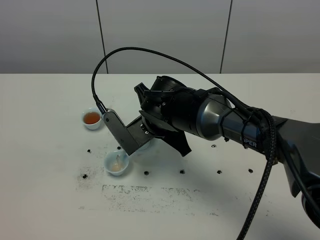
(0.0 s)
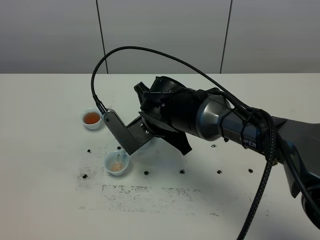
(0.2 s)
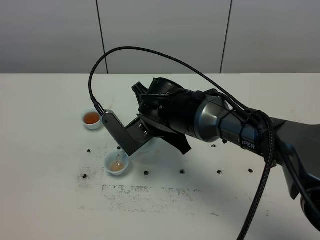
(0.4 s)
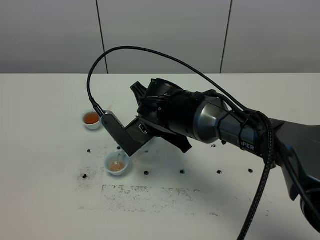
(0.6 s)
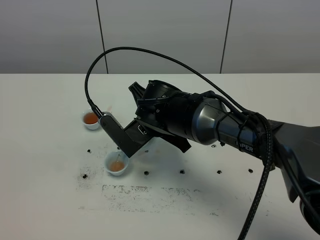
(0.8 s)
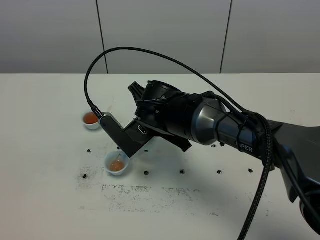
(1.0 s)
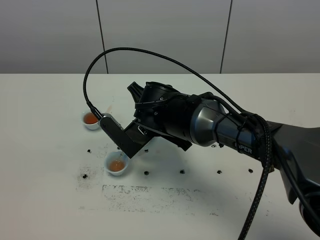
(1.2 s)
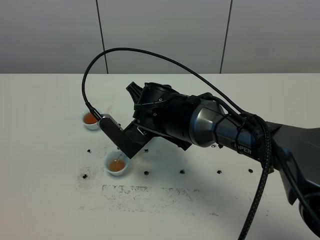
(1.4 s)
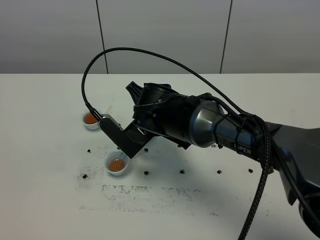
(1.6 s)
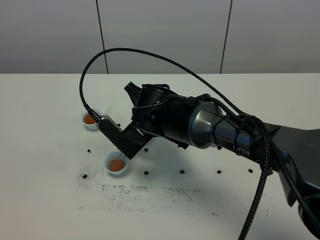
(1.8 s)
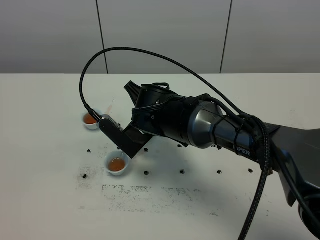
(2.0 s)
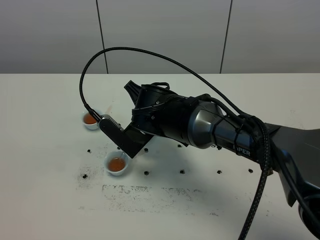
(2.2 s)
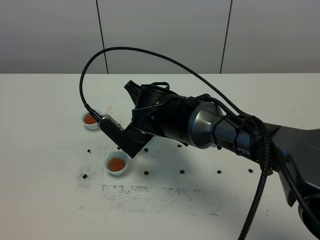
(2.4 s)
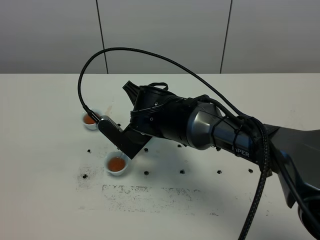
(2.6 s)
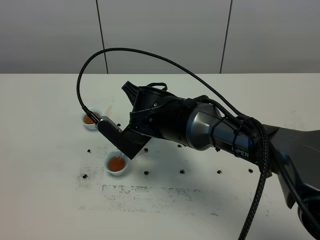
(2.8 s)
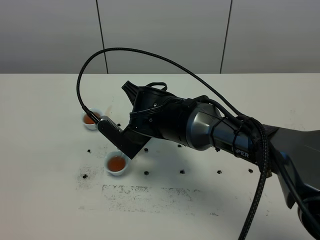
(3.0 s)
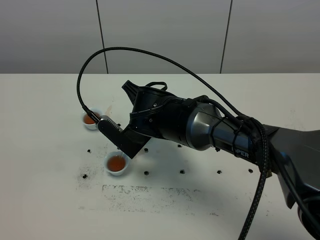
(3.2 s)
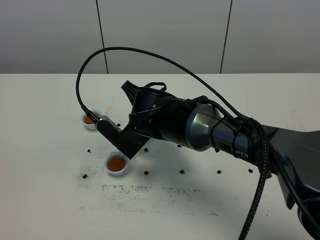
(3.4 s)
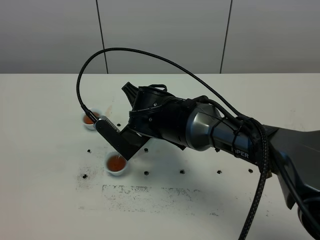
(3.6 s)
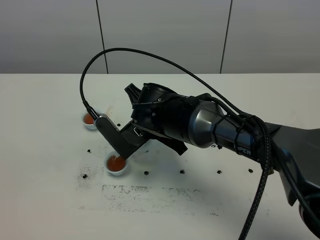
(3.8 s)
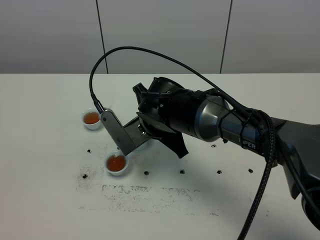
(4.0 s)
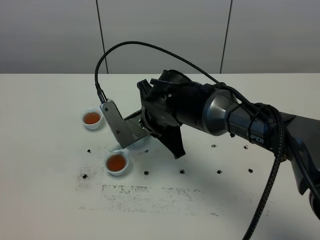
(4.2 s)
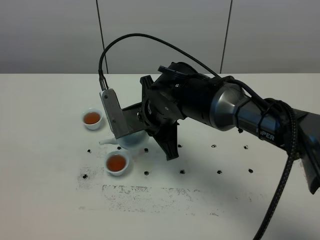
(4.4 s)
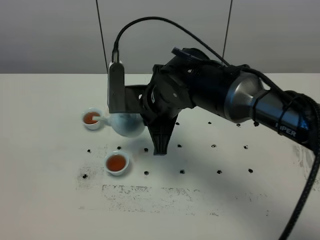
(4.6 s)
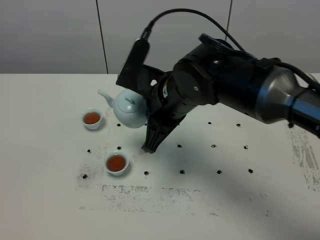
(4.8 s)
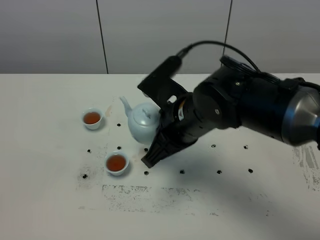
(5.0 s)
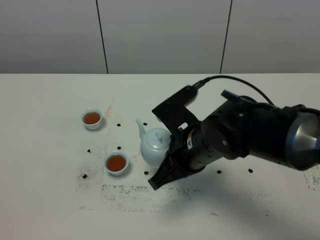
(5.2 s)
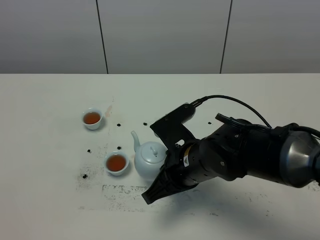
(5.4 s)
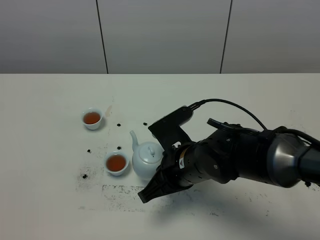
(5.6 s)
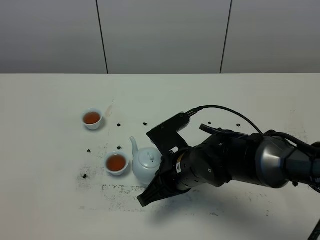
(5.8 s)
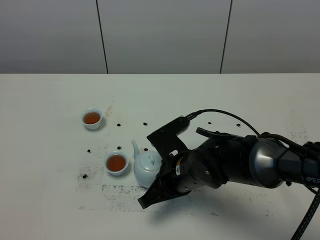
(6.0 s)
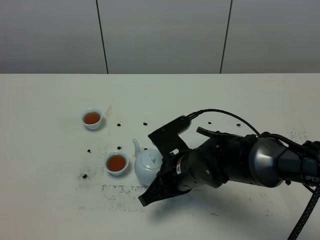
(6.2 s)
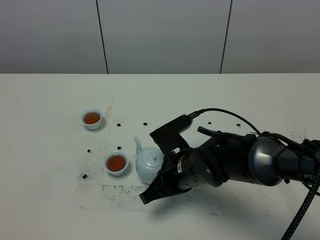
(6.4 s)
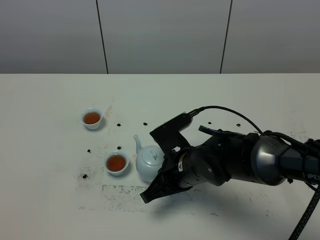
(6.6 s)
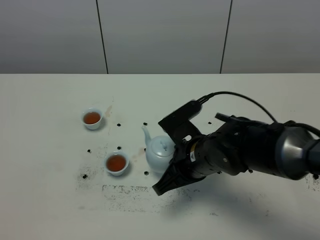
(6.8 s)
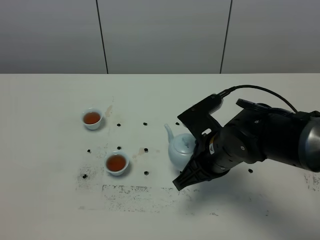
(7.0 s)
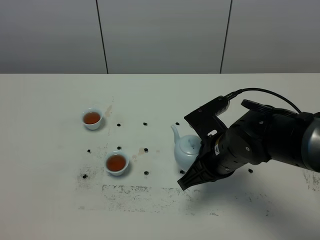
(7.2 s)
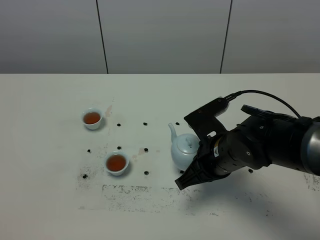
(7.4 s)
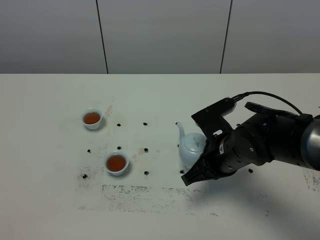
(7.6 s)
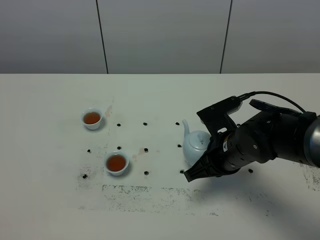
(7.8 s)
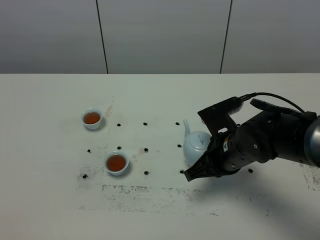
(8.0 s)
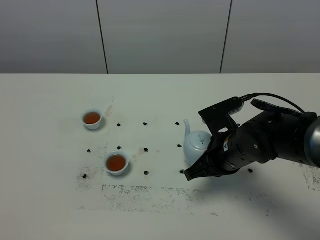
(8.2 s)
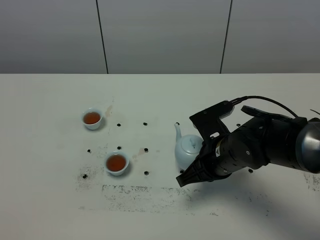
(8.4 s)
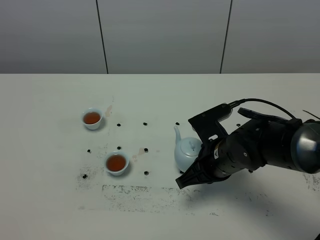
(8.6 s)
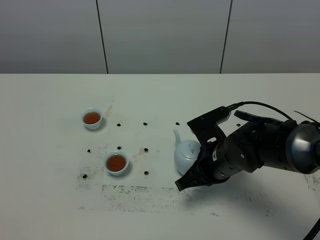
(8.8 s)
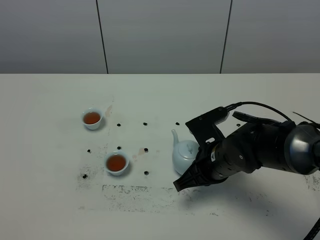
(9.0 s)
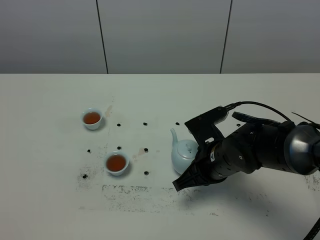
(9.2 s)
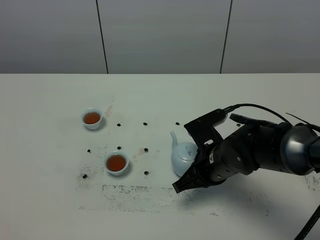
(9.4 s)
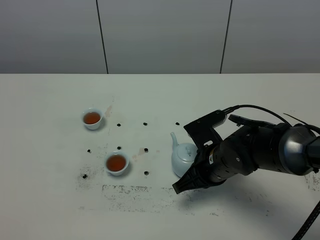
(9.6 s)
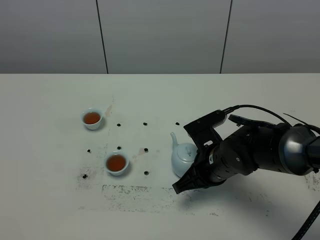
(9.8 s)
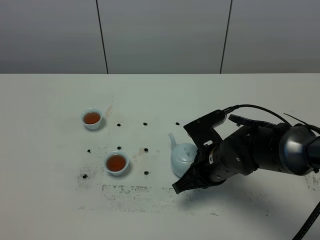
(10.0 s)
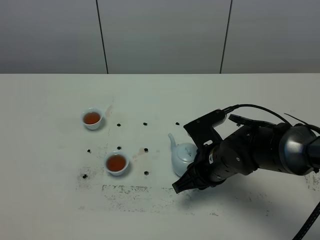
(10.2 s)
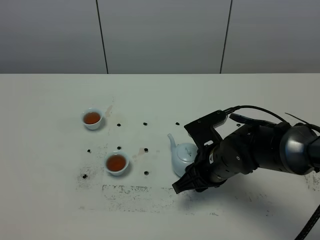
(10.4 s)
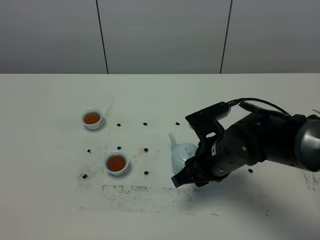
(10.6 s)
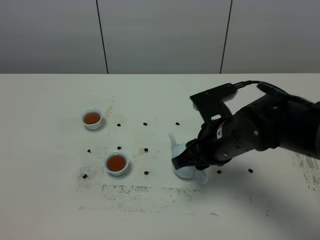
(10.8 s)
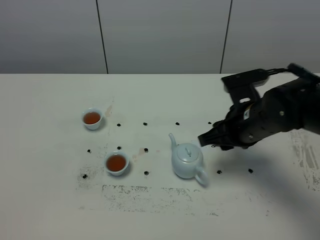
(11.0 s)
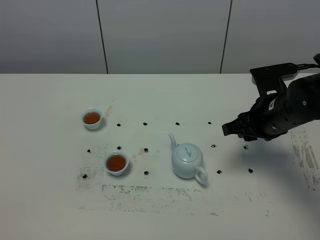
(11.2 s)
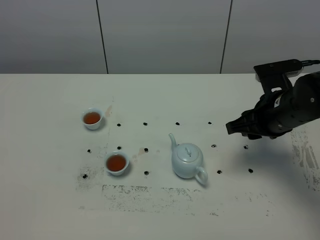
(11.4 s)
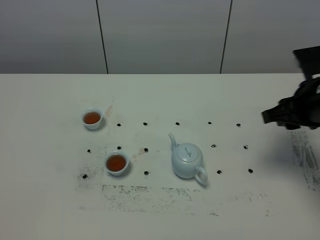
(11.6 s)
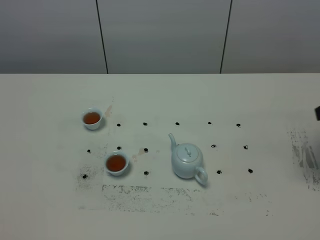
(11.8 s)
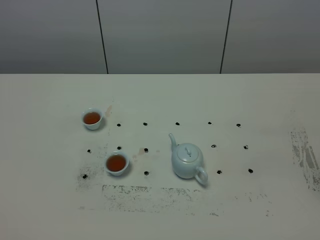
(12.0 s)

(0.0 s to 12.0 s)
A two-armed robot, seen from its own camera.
Task of the whole recording: grasp the blue porcelain teapot and pour the tea into the two blue porcelain teacups one by one, put the blue porcelain teapot back in its original place.
Step, 0.0 s - 4.2 s: Pour tea into the teacup with the right gripper.
0.0 s - 1.6 s: The grippers make only small movements.
1.6 s - 3.0 s: The two grippers keep their place.
4.4 s - 6.0 s: The right gripper shifts roughly 10 cm backward and downward.
6.0 s - 7.6 s: The right gripper shifts approximately 10 cm to the right.
7.6 s - 9.0 s: The grippers stay close to where they were, moving slightly.
9.0 s - 10.4 s: The right gripper opens.
10.4 s - 12.0 s: The right gripper travels to the right and upward by approximately 30 cm.

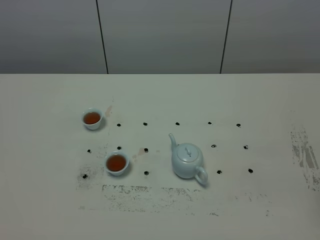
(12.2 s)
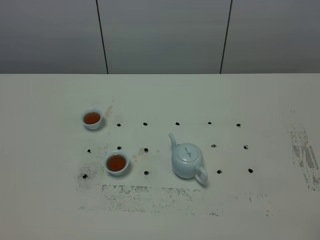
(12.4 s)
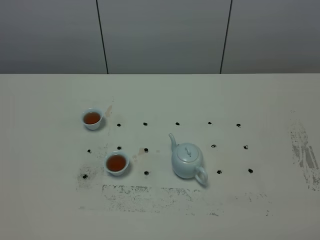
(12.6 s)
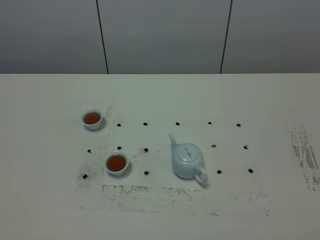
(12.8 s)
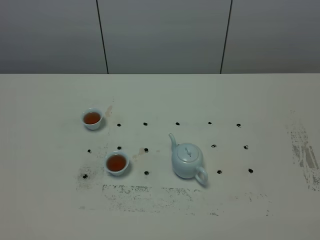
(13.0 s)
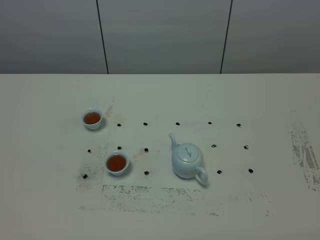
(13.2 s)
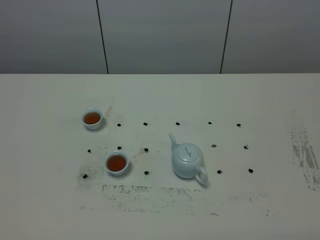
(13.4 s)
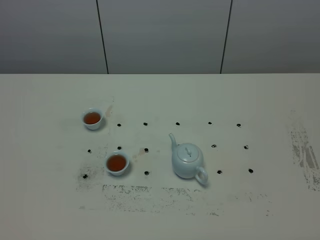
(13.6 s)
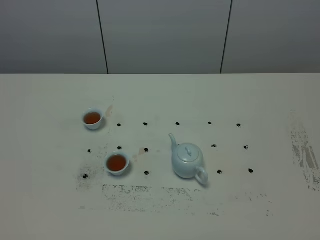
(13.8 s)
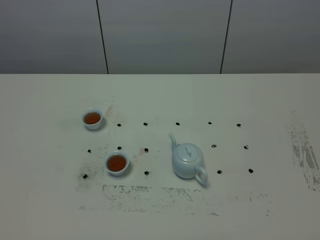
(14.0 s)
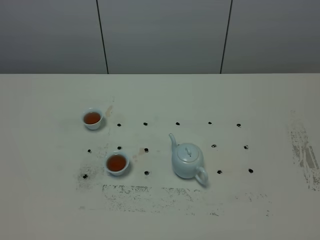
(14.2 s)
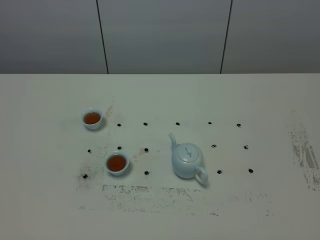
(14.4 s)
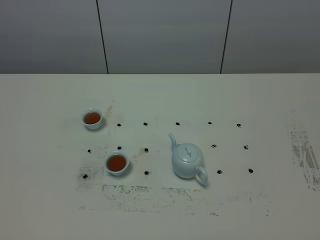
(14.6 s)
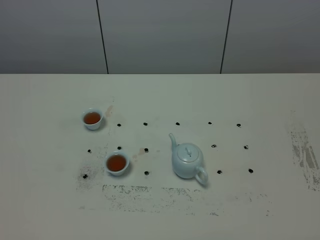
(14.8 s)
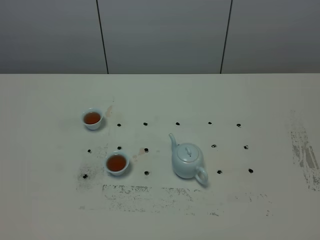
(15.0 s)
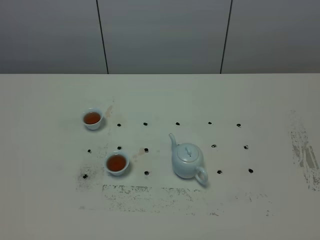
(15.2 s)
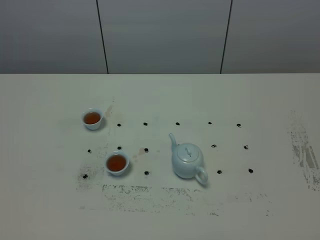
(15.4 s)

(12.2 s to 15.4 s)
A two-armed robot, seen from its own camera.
Task of the whole recording: grasp the blue porcelain teapot and pour the tea into the two blue porcelain teacups one by one, put the blue porcelain teapot back in its original place.
13.8 s - 15.4 s: The two grippers keep their place.

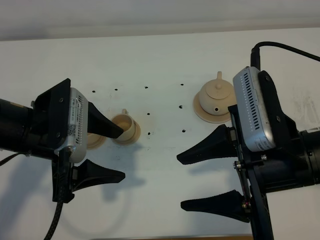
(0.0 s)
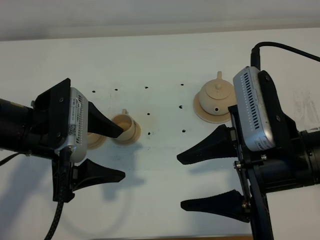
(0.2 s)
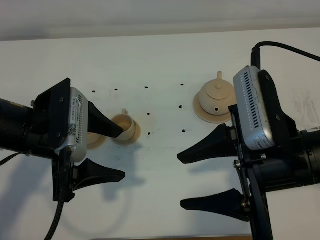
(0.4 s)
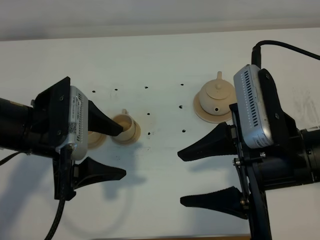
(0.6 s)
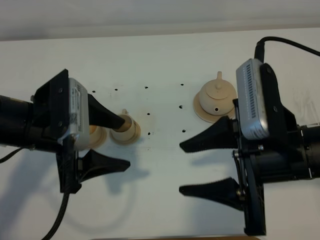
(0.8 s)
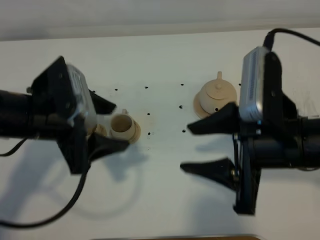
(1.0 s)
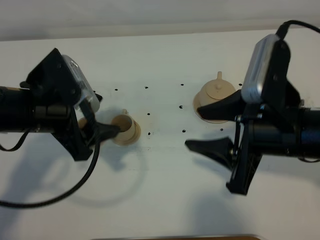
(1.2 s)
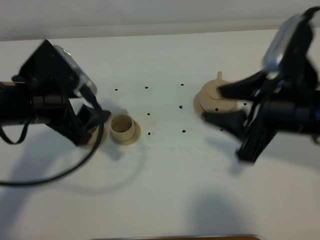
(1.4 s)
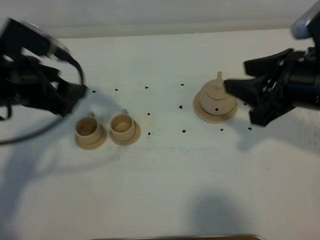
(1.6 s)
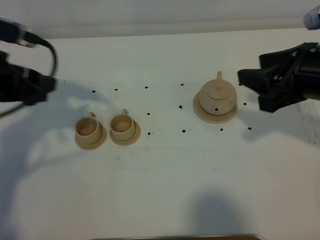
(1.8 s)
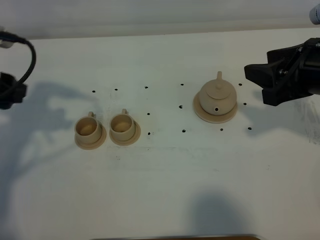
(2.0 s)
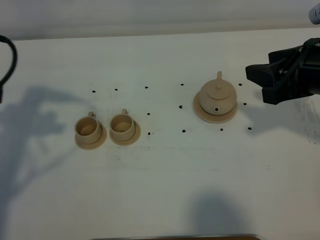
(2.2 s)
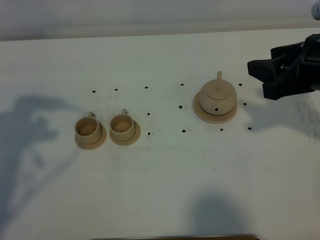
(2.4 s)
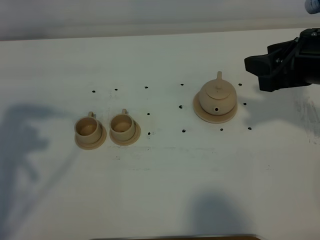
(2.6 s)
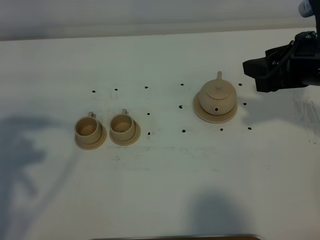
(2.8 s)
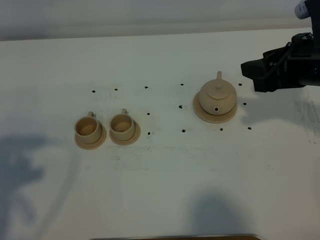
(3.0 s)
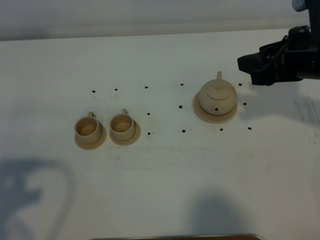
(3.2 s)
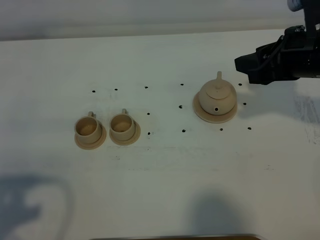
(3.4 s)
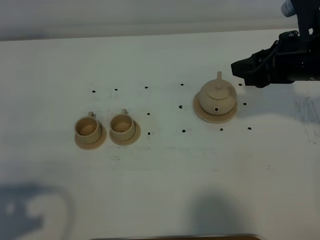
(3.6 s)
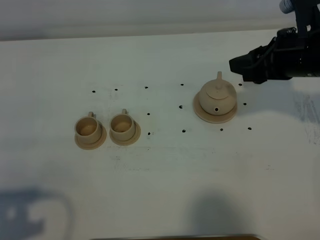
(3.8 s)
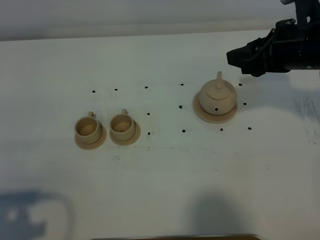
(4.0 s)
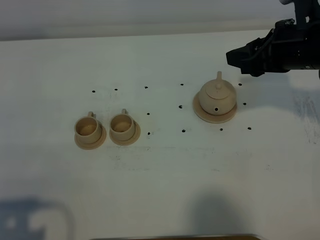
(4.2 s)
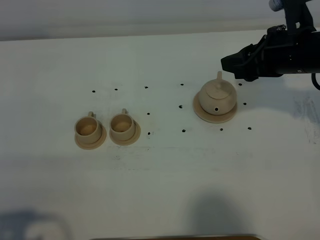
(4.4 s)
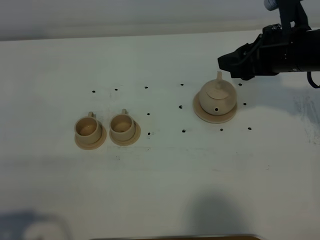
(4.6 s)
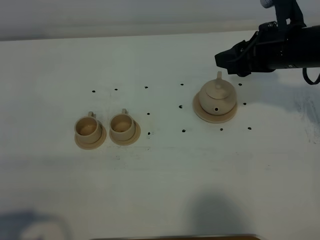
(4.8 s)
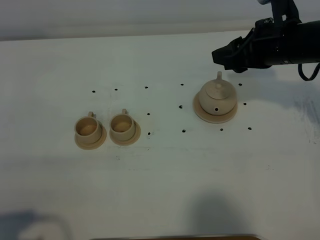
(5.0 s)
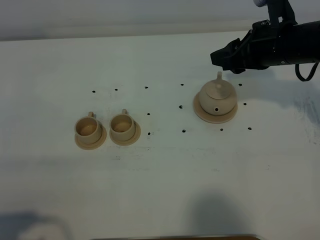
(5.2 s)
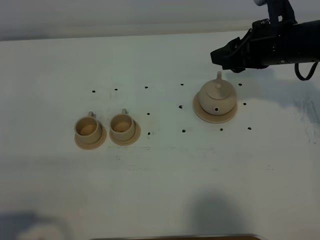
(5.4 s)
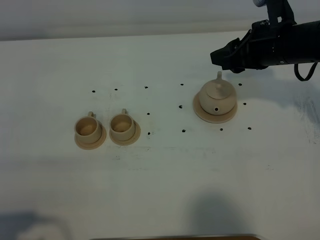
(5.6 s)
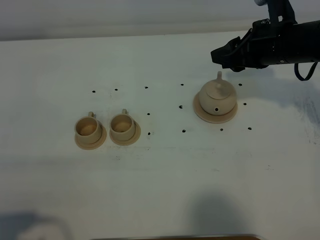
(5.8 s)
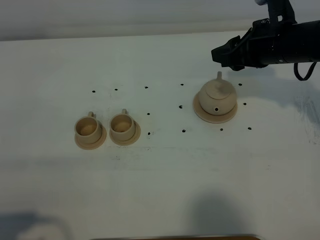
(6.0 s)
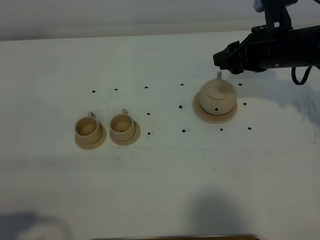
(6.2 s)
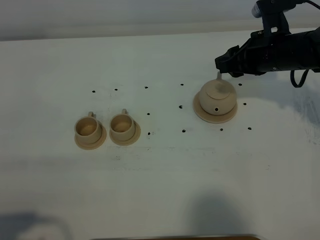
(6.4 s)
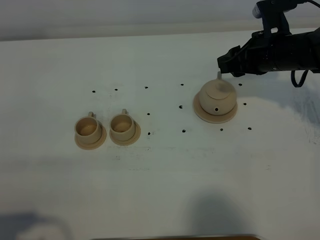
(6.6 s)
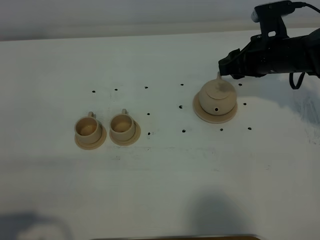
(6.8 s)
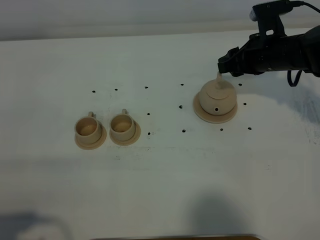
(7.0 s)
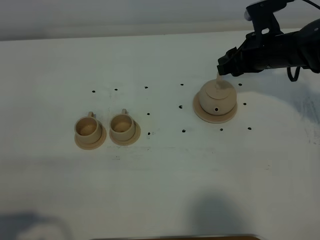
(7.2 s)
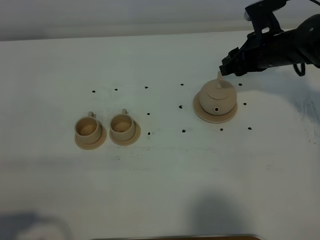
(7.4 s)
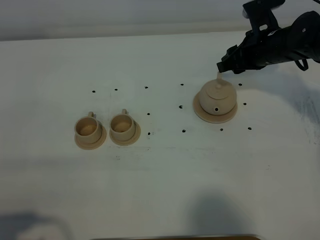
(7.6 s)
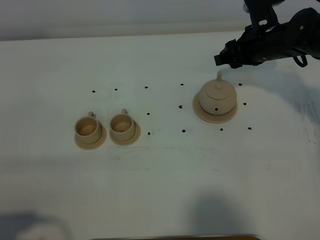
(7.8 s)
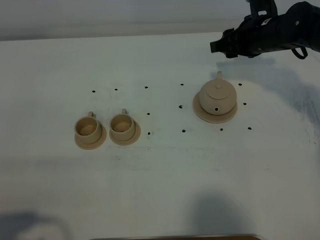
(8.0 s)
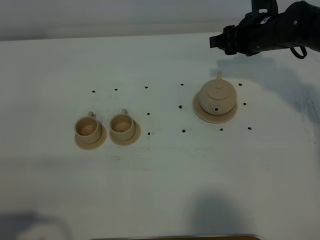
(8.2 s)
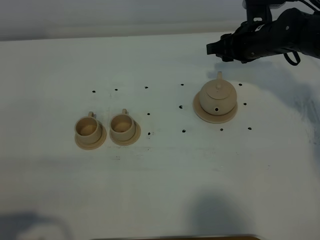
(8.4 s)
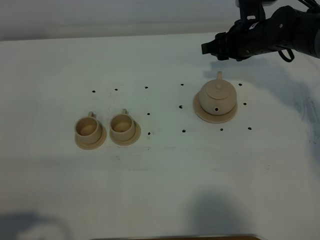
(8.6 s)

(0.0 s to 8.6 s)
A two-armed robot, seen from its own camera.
Task of the whole recording: grasp the brown teapot and pour the tea into the two brown teacups one by one, put the brown teapot back in its original place.
0.0 s - 1.4 s: The right gripper travels forward by about 5 cm; the left gripper ends up roughly 5 cm from where it was.
1.4 s - 2.8 s: The left gripper heads backward, to the left and upward, covering roughly 20 cm; the right gripper shifts about 5 cm forward.
2.8 s - 4.4 s: The right gripper ends up approximately 5 cm from where it was, while the left gripper heads backward and downward, covering approximately 15 cm.
5.8 s - 7.2 s: The right gripper heads downward and forward, covering some 10 cm.
7.2 s - 8.6 s: The grippers stay close to where they were, moving slightly.
